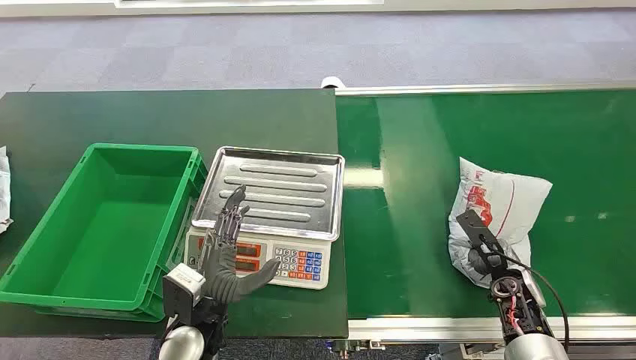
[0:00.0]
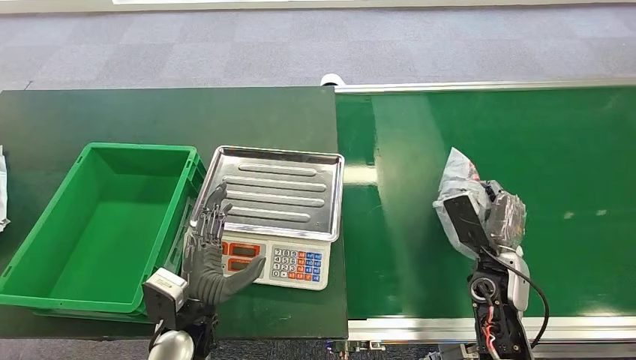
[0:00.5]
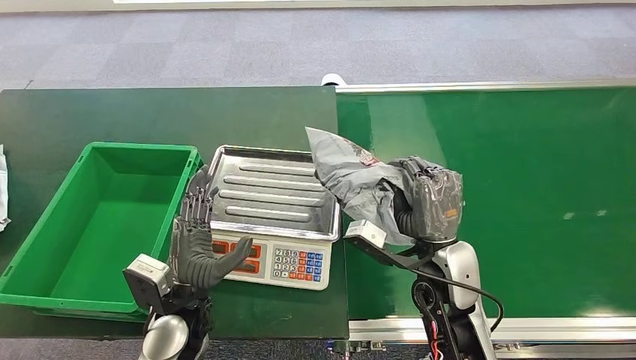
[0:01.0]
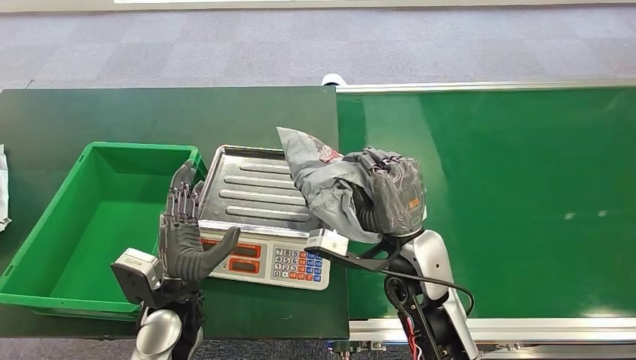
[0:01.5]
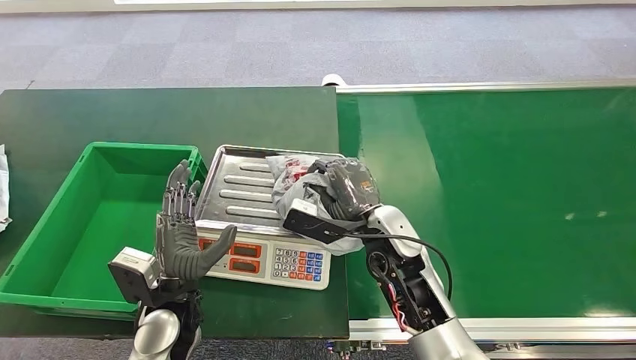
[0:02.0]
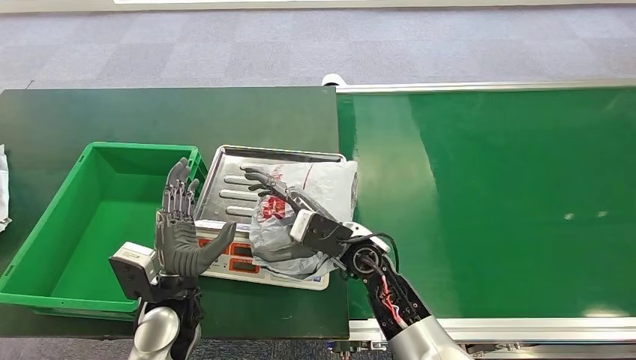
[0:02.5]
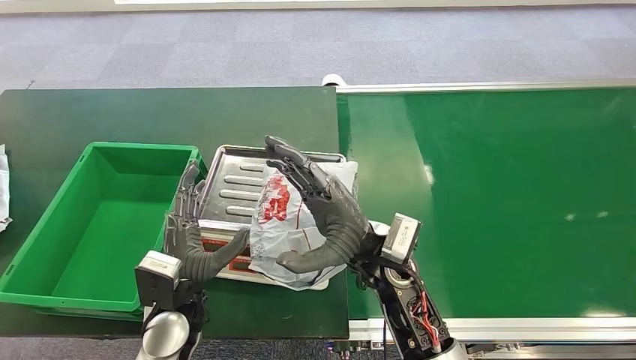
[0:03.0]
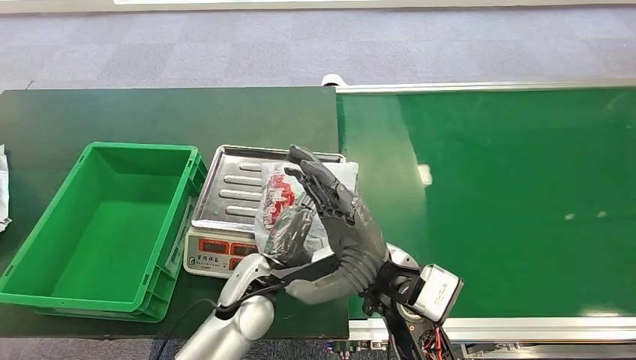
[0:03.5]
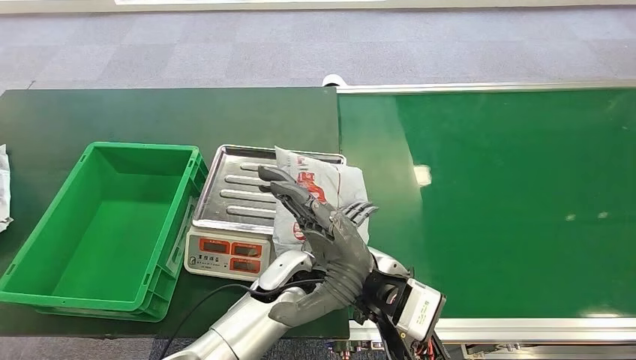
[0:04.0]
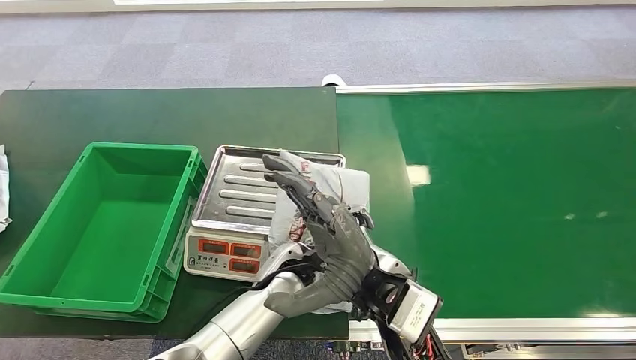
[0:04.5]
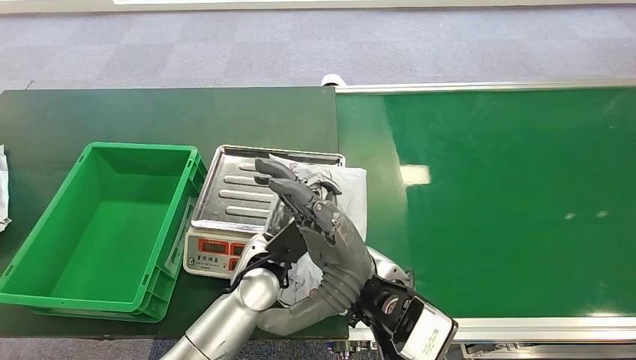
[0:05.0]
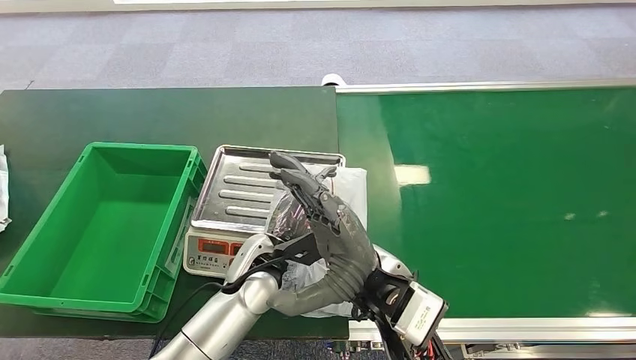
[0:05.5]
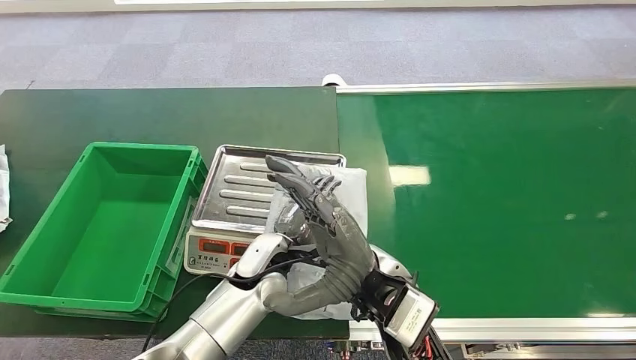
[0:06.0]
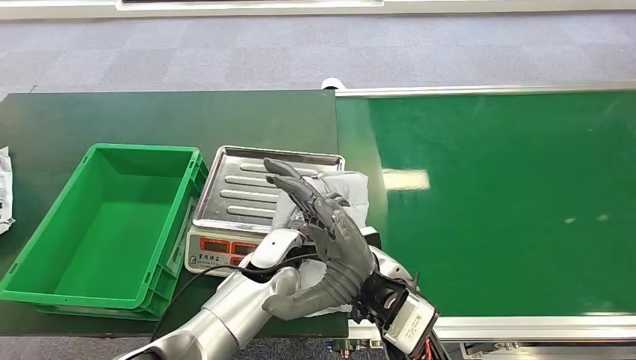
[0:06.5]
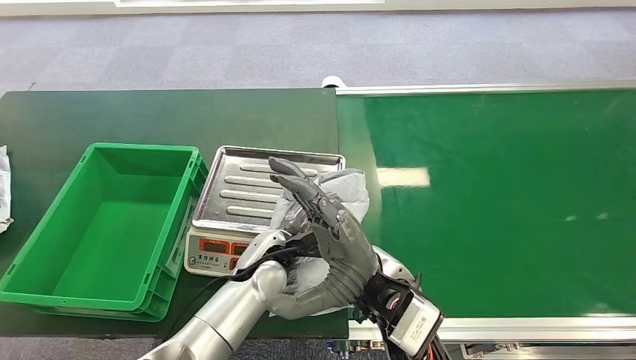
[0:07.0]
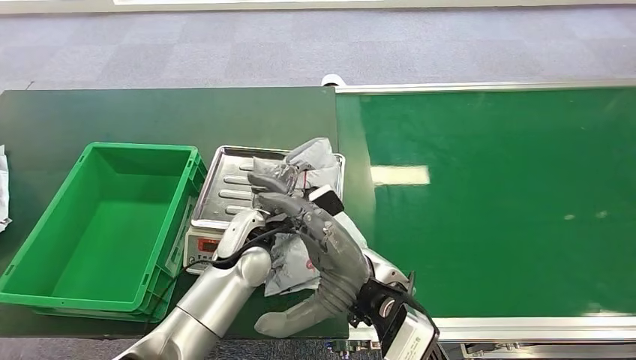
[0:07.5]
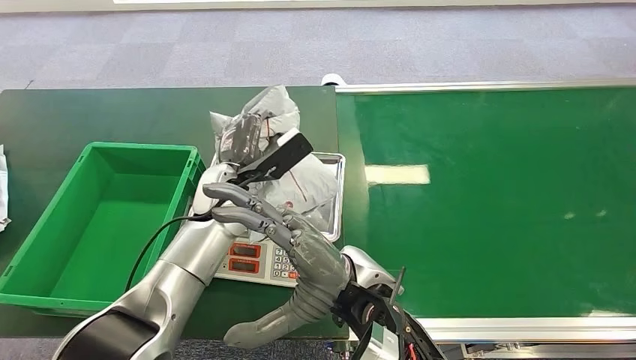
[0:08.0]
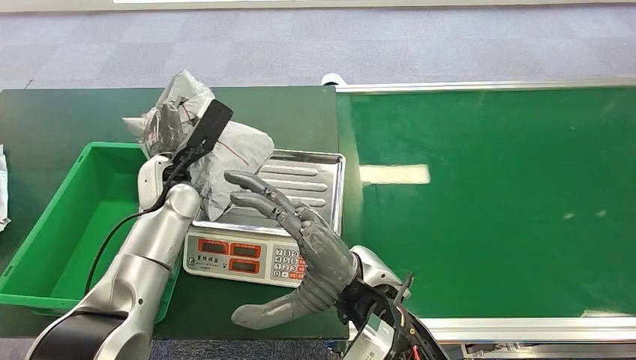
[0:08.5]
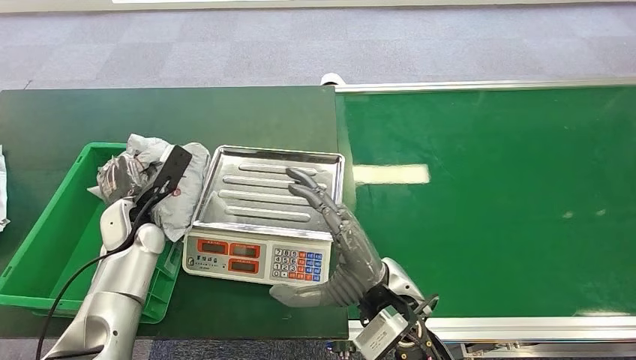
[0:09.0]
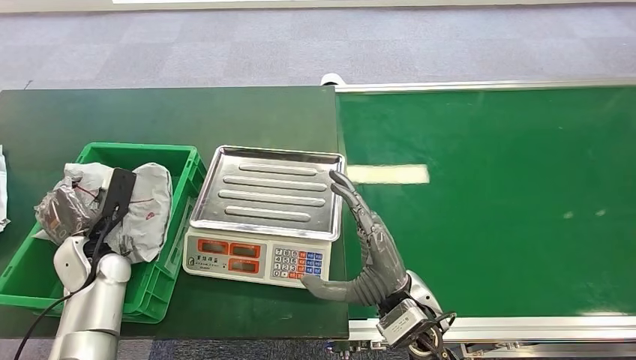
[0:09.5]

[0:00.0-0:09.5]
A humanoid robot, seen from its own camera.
Step, 0:00.0 to 0:01.0: Pick up the package from the conveyor belt.
Step, 0:01.5 to 0:02.0: Place the package onto the inbound machine.
Step, 0:07.0 to 0:08.0: Pick up the package from the inbound machine.
Step, 0:09.0 to 0:09.5: Place the package into the parcel locker.
0:02.0 to 0:04.0: The left hand heads to the right, covering roughly 15 cm. The right hand is displaced backward by roughly 10 cm.
0:04.0 to 0:05.5: The left hand ends up some 5 cm from where it was.

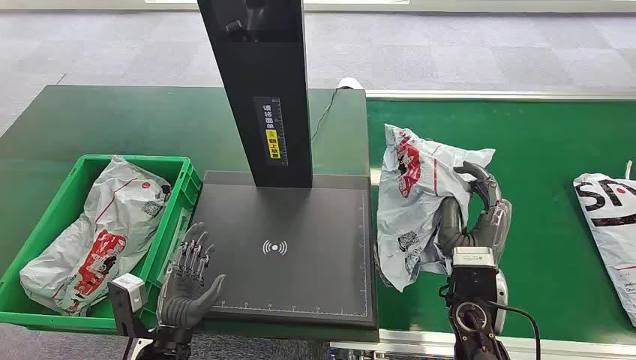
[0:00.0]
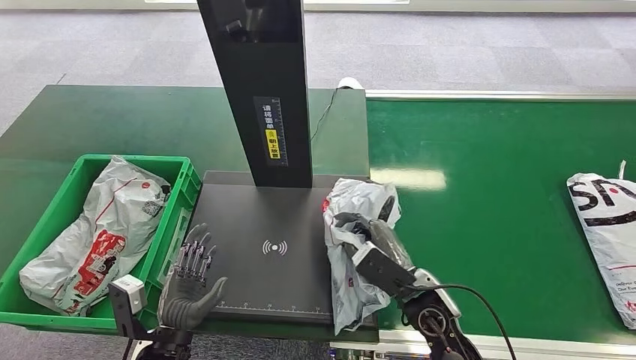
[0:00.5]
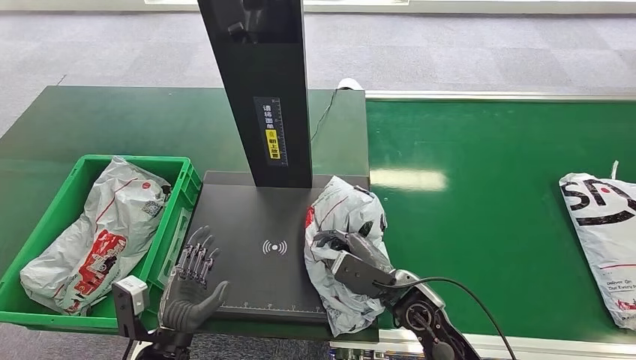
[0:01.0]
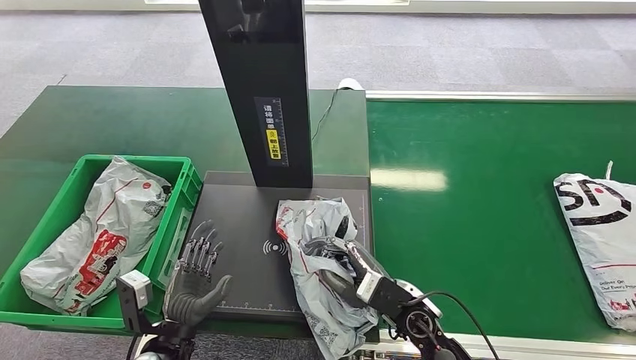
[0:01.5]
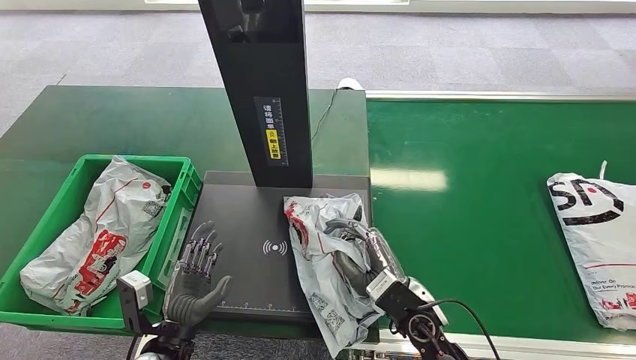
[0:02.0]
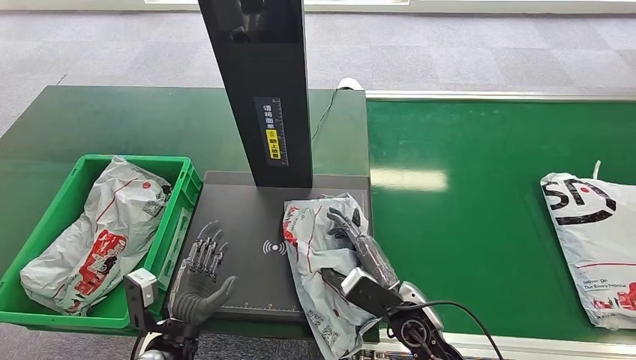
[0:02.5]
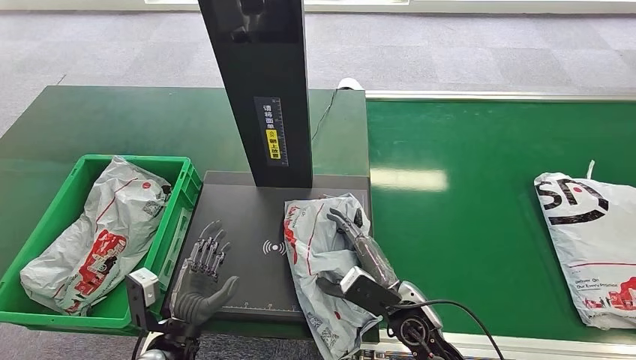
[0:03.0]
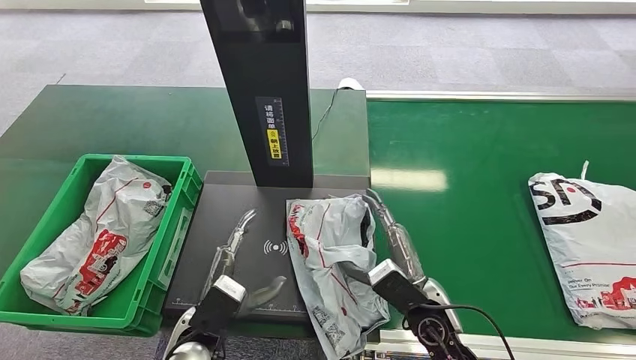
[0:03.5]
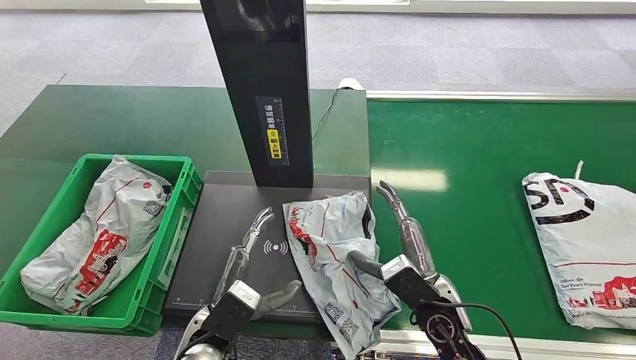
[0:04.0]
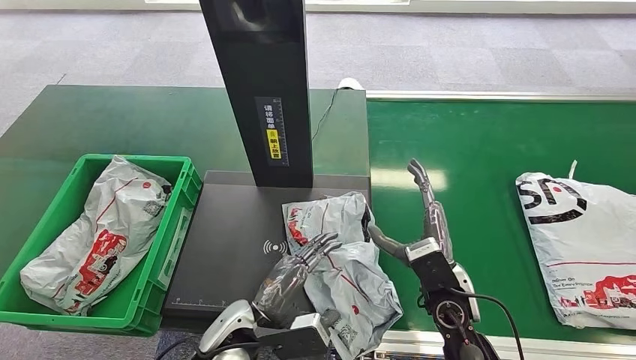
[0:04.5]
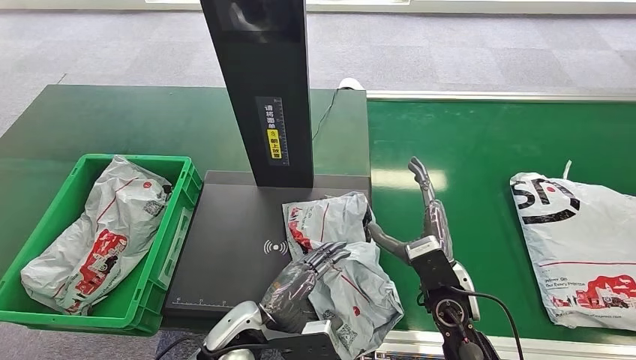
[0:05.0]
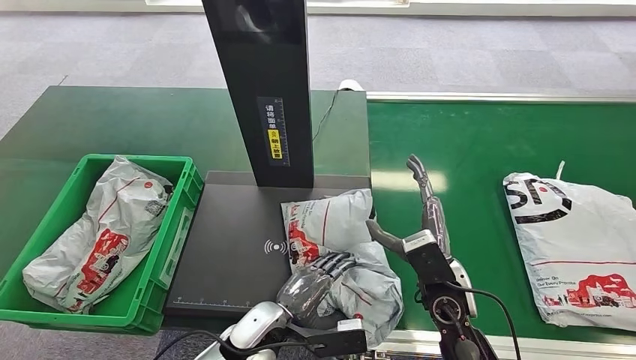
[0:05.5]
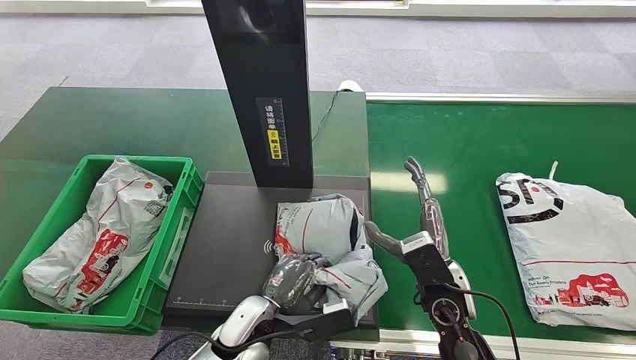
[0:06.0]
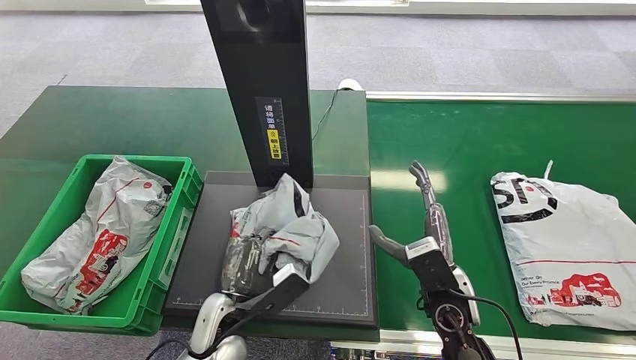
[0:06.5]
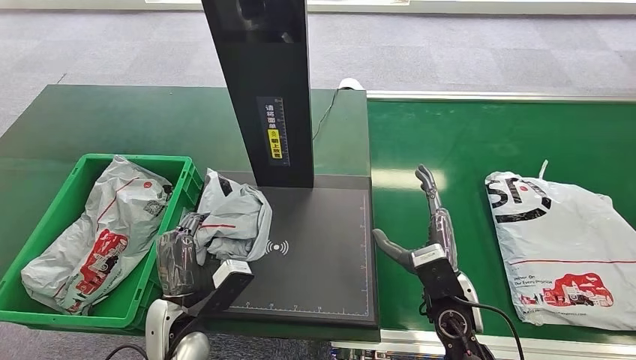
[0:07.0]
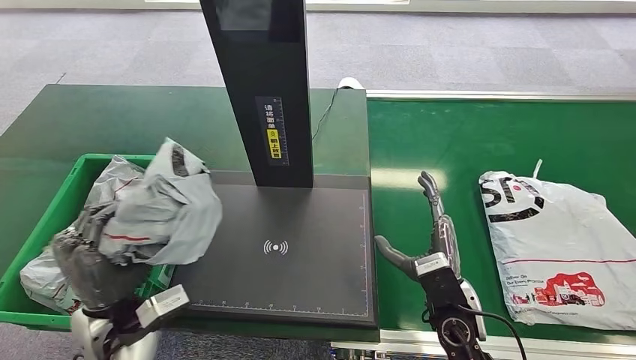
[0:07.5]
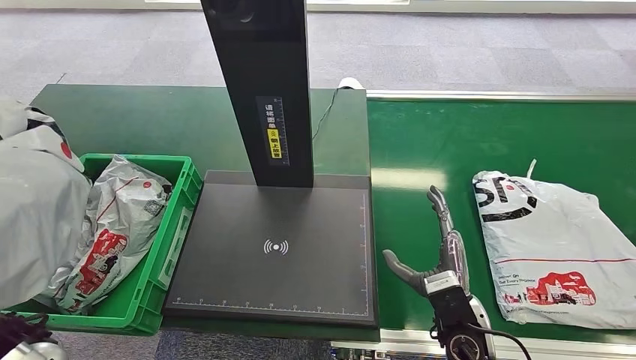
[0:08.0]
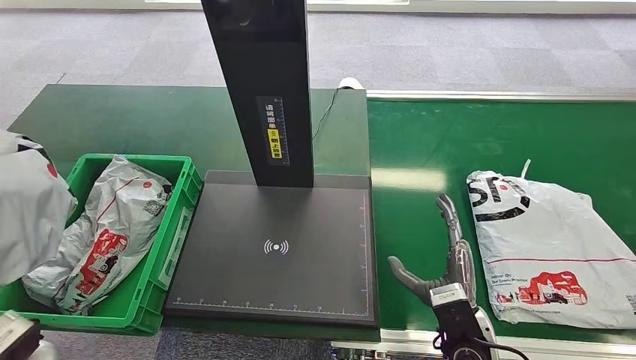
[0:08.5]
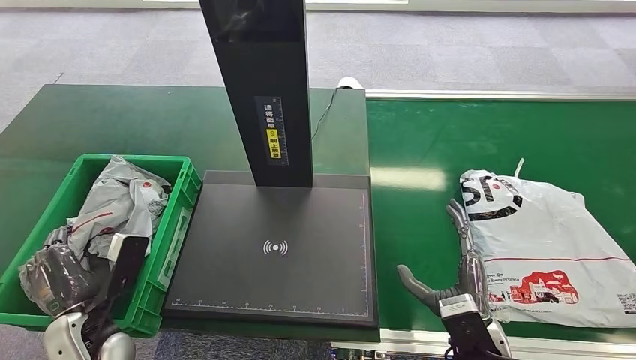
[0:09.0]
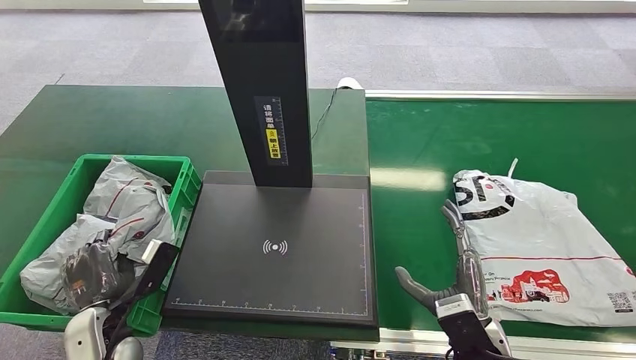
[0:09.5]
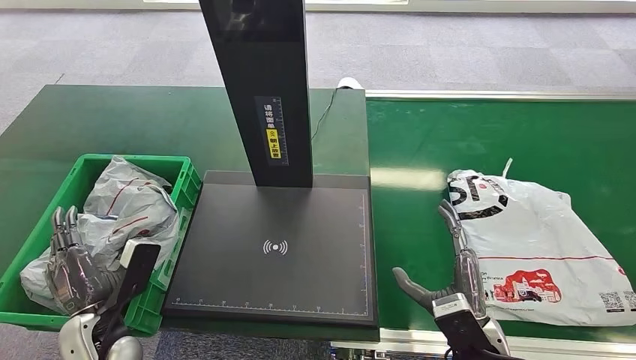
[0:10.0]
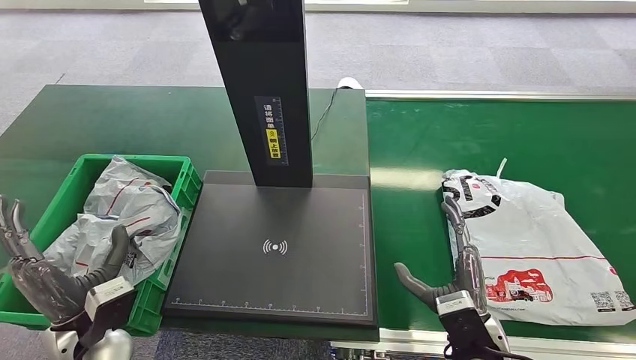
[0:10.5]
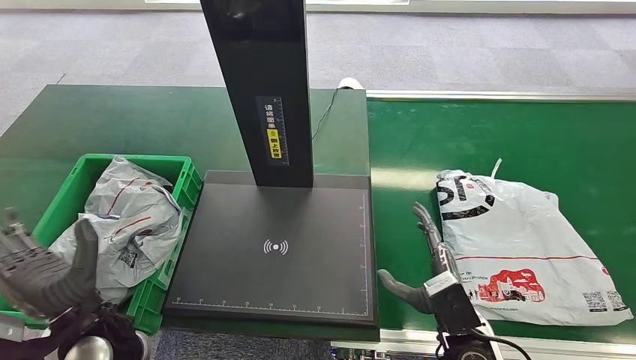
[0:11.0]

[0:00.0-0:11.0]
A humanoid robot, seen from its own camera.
0:02.0 to 0:03.5: The left hand shifts by some 5 cm.
0:07.5 to 0:09.0: The right hand travels backward by about 5 cm, while the left hand heads to the left, covering about 5 cm, and travels upward and back again, about 10 cm each way.
0:09.0 to 0:11.0: The left hand heads upward and to the right, covering roughly 10 cm.
